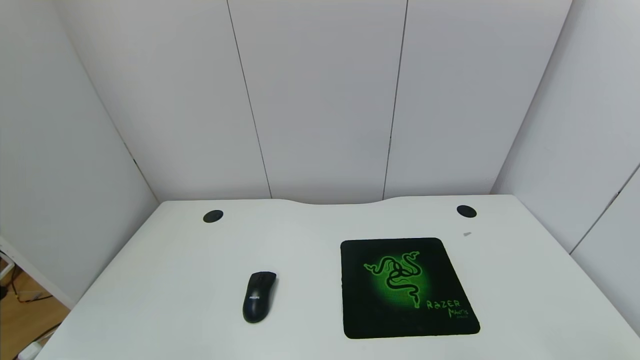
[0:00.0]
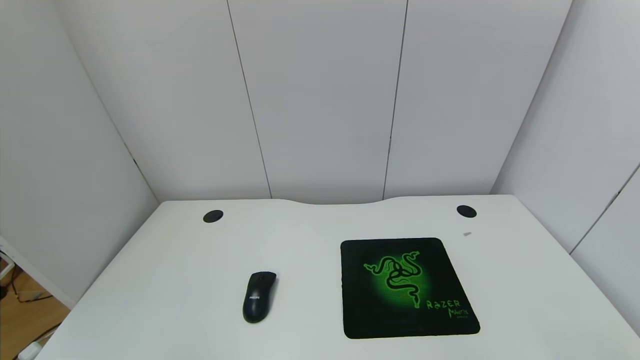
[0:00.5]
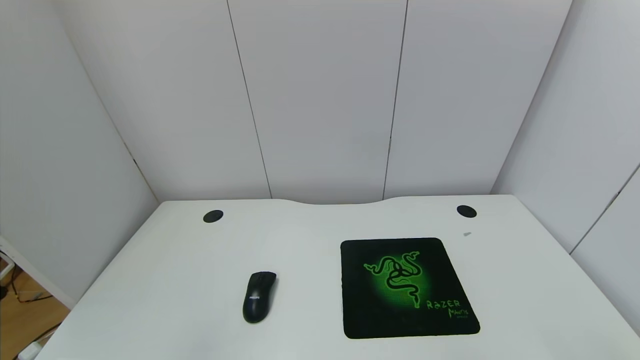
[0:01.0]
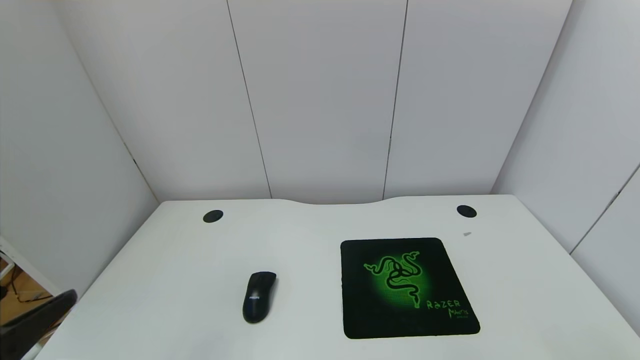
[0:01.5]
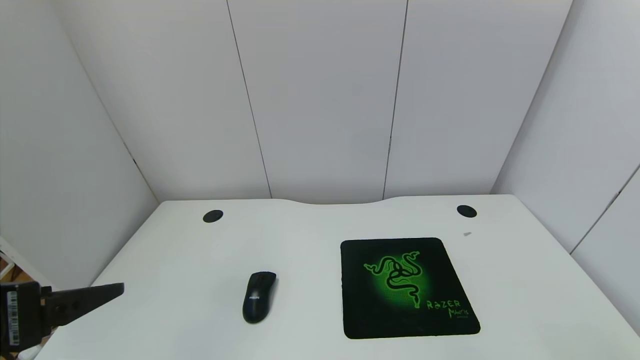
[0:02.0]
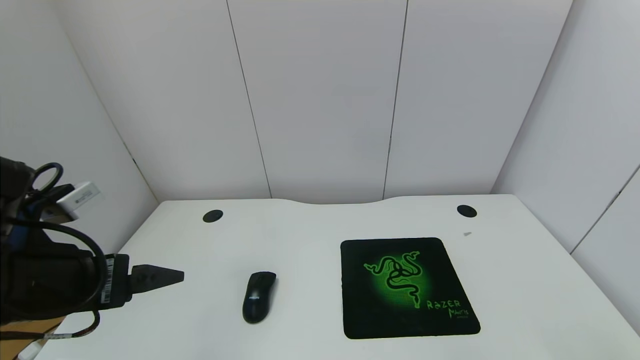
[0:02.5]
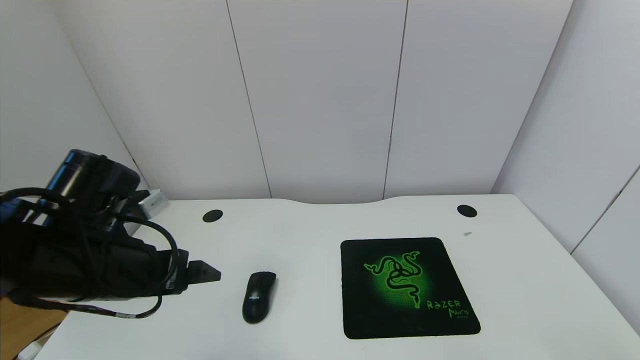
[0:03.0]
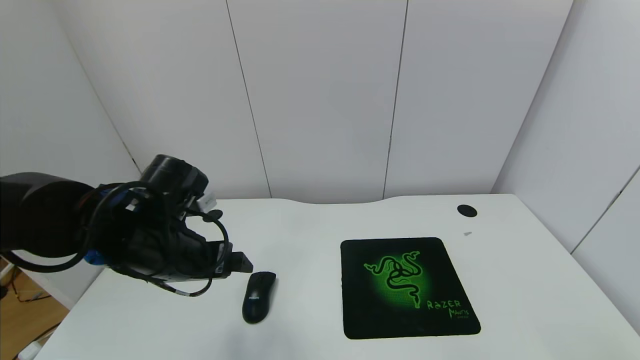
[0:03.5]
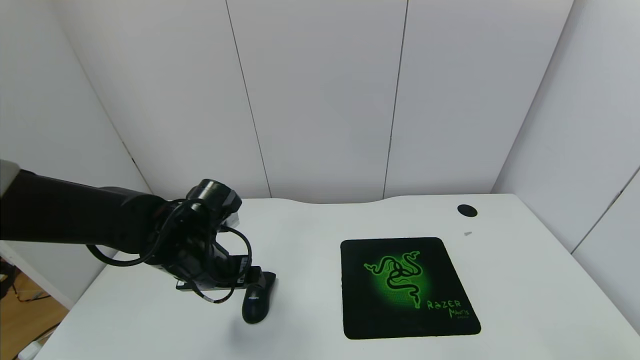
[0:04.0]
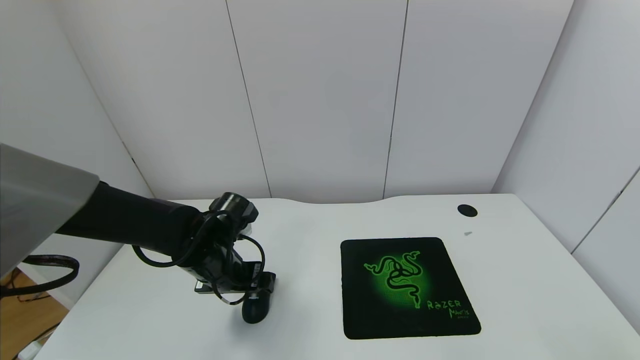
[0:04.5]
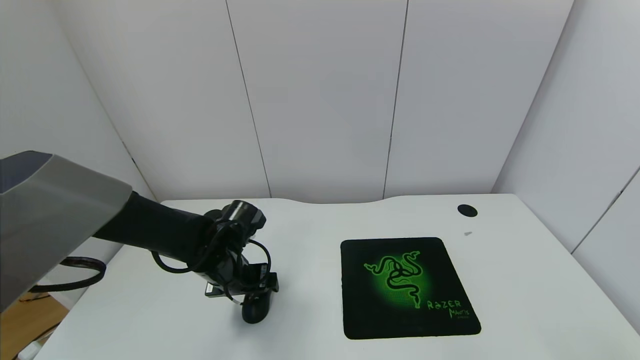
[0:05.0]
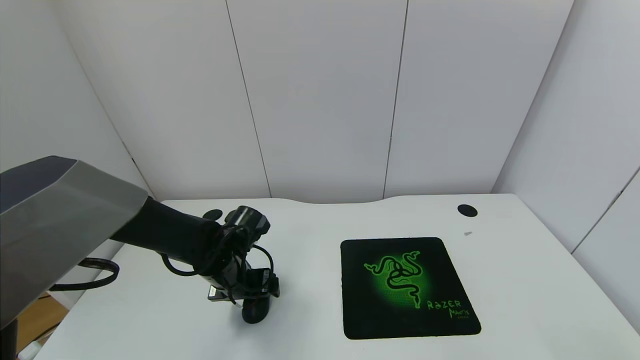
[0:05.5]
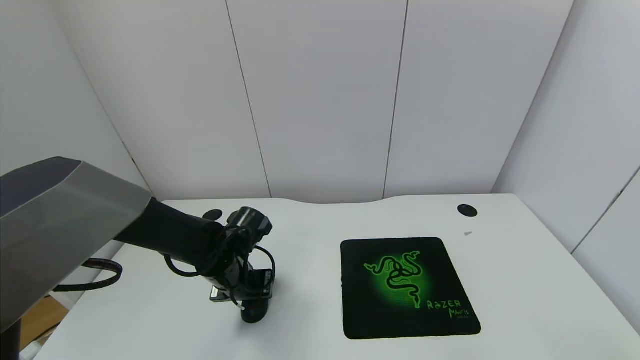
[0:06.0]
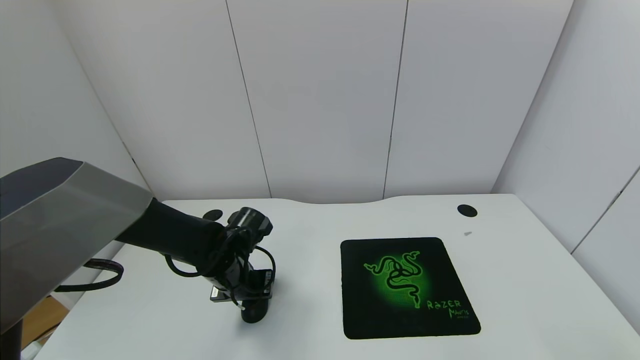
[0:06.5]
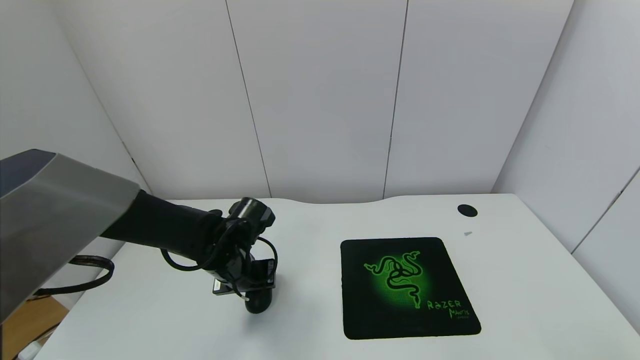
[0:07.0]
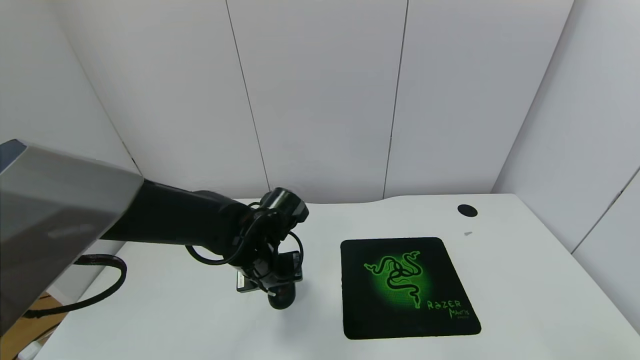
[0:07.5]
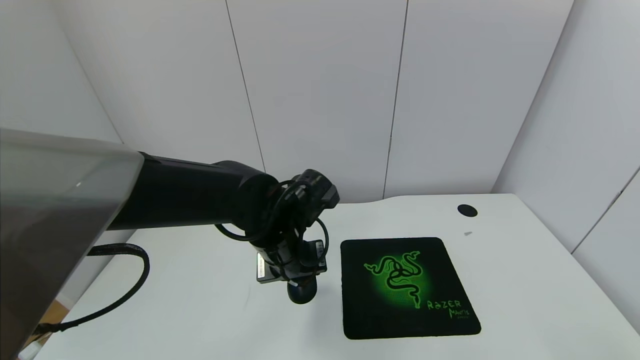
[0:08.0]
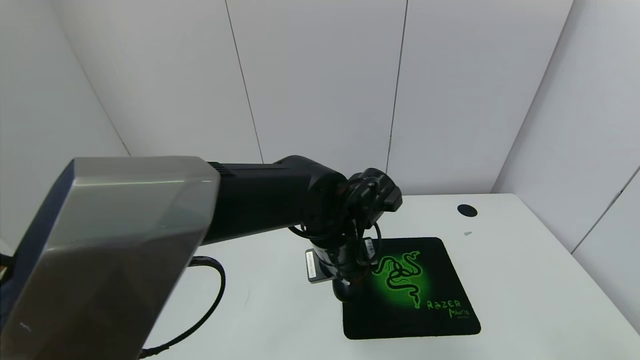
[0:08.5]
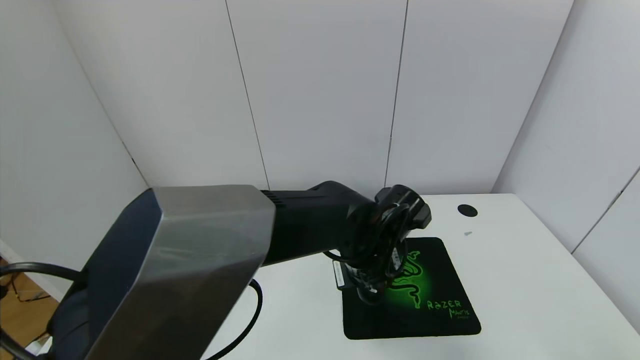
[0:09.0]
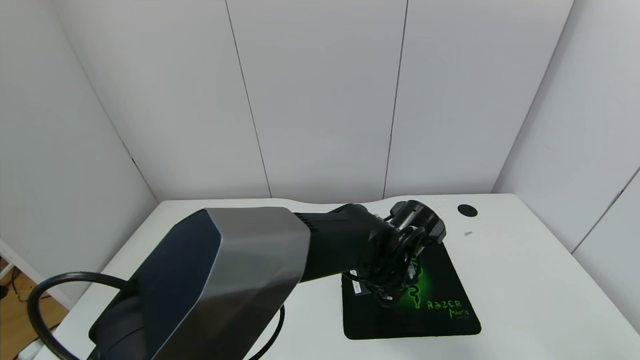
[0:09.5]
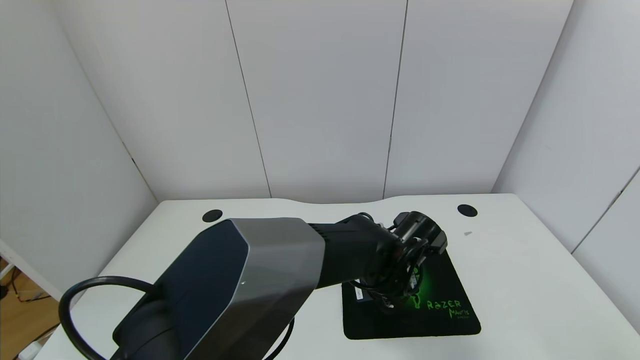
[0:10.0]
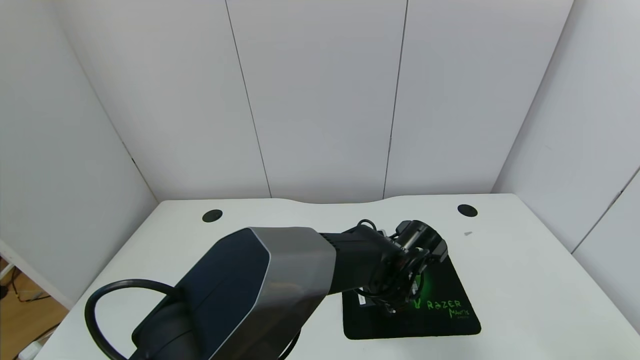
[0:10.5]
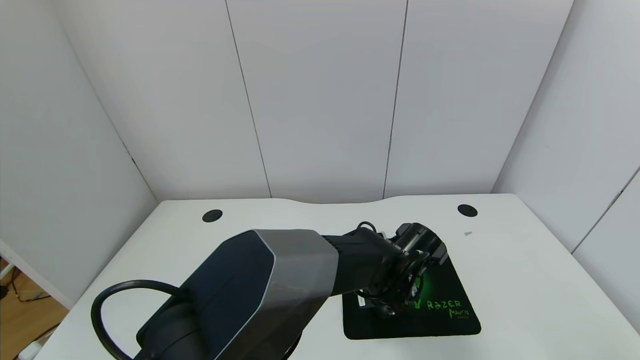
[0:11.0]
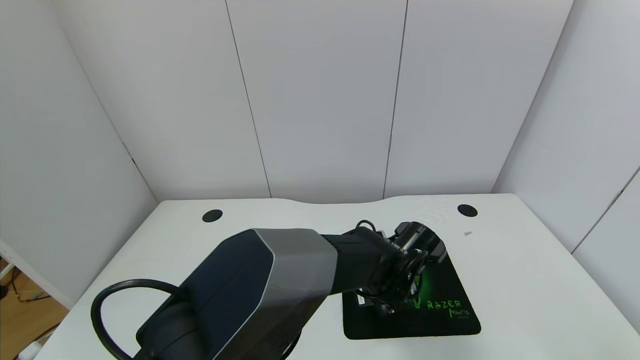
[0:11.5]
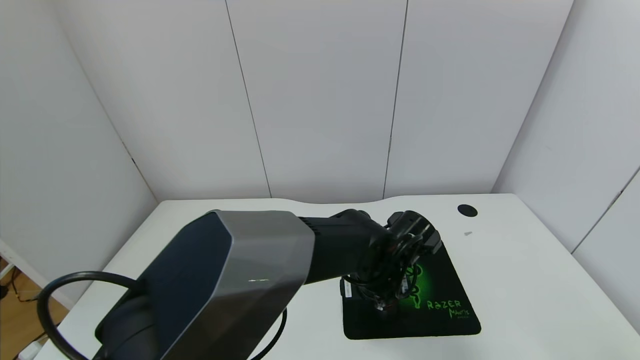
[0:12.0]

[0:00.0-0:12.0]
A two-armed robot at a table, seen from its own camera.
Task of the whole recording: use the gripper to move the mouse from one side of the table to the mouse pad on the opposite side.
Step, 0:00.0 to 0:06.5: Grasp the mouse with the left gripper.
0:00.0 to 0:02.0: The left gripper heads upward and forward, covering approximately 20 cm.
0:02.0 to 0:04.0: The left gripper heads forward, downward and to the right, covering about 25 cm.
0:04.0 to 0:06.0: The left gripper shifts roughly 5 cm downward, and closes up.
0:06.0 to 0:08.0: The left gripper moves to the right and upward, about 15 cm.
0:08.0 to 0:10.0: The left gripper goes some 15 cm to the right and downward.
0:10.0 to 0:12.0: The left gripper opens.

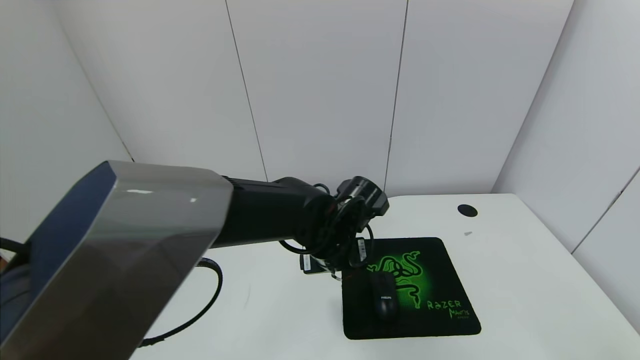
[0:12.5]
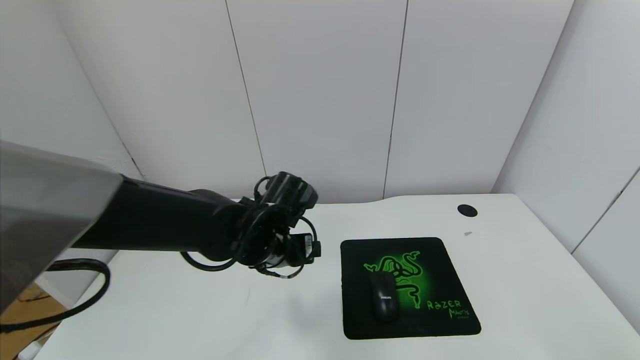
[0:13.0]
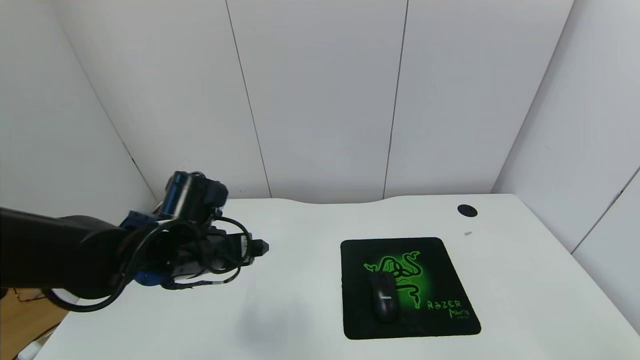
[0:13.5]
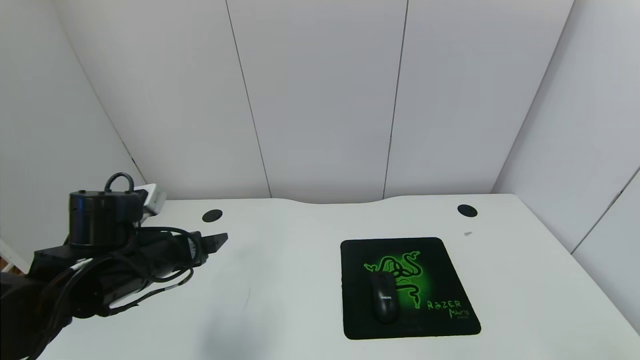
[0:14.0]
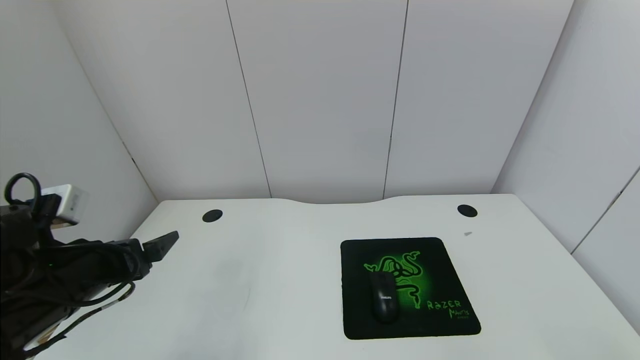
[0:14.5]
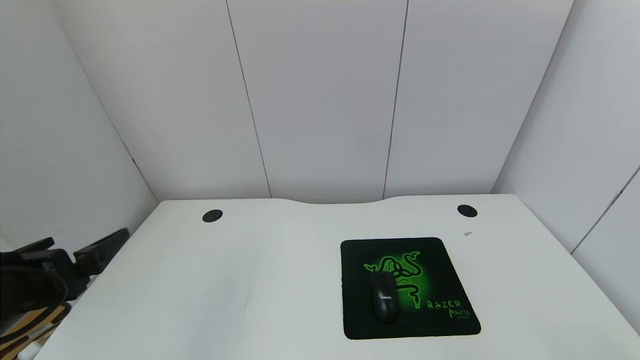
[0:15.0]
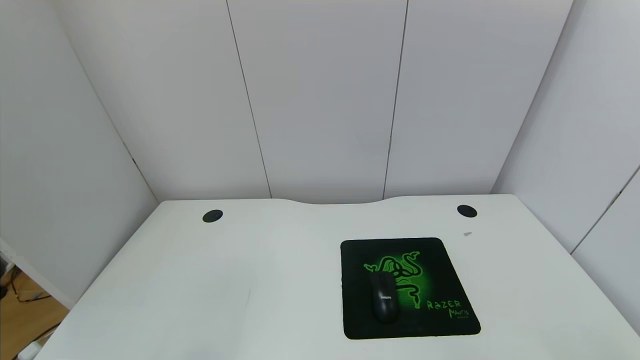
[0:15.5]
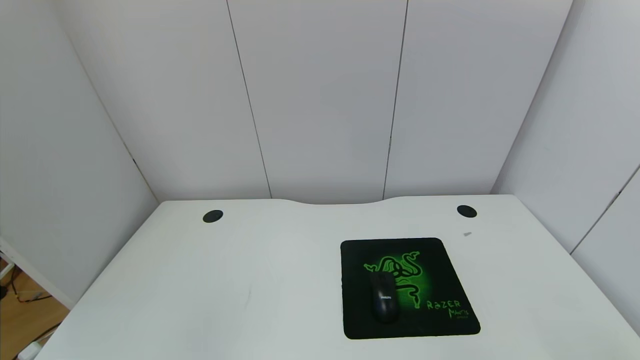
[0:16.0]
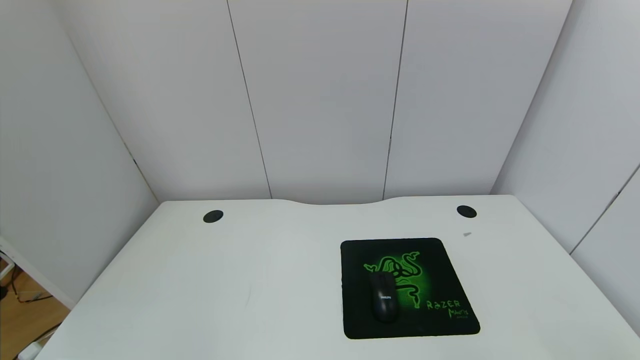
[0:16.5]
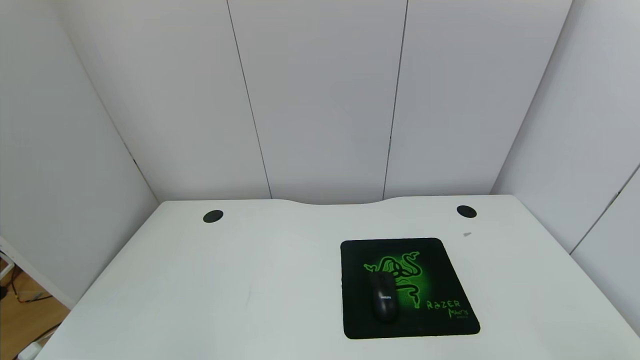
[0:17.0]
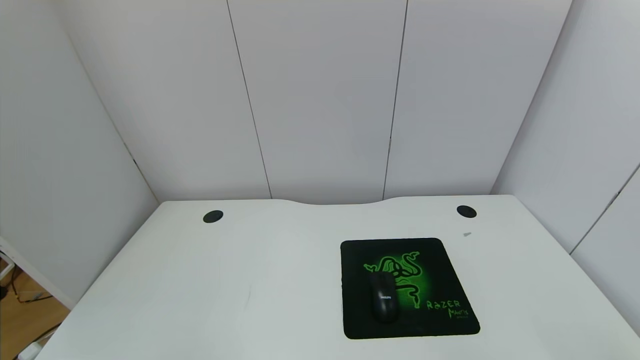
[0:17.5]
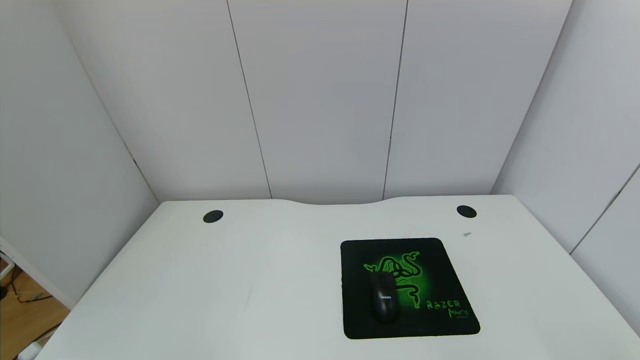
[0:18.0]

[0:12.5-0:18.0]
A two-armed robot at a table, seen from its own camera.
Task of the whole recording: use the gripper to move the mouse from one side of the table to the mouse pad on the opposite side.
0:12.5 to 0:14.5: The left gripper travels to the left and backward by about 30 cm.
0:14.5 to 0:16.0: The left gripper heads backward, covering about 25 cm.
